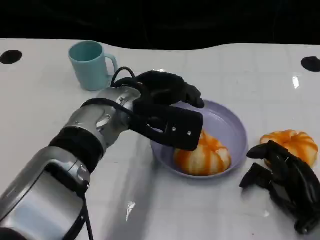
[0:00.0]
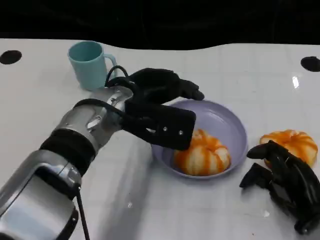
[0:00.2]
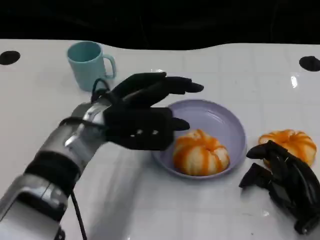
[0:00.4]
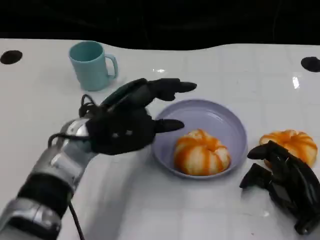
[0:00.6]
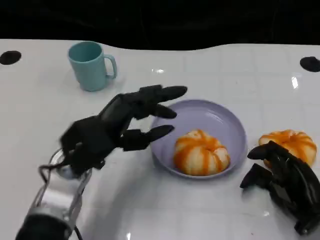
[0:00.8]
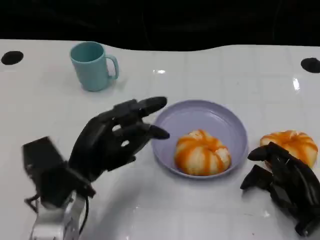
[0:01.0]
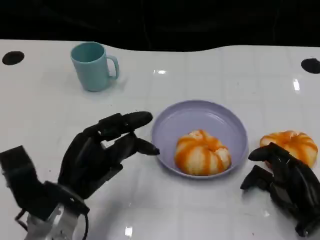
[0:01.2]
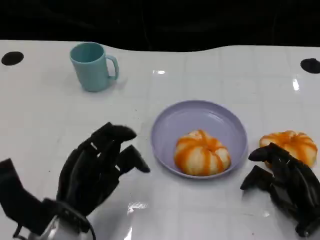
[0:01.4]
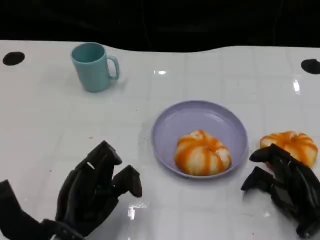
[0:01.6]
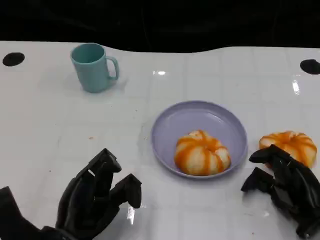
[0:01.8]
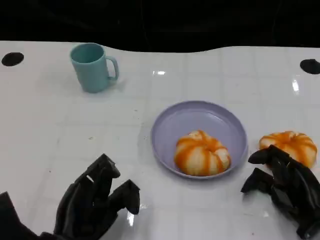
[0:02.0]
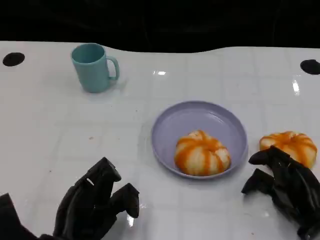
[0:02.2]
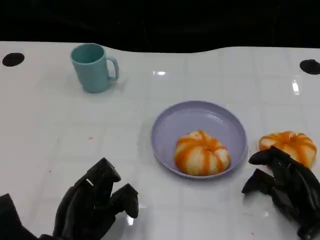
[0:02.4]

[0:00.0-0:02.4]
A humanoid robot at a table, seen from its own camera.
Task of the whole recording: Grasp the bread from the table and place it into the plate.
0:00.0 to 0:01.2: The left hand moves to the left, backward and downward, roughly 15 cm.
0:01.2 to 0:02.4: The left hand travels backward by approximately 5 cm.
